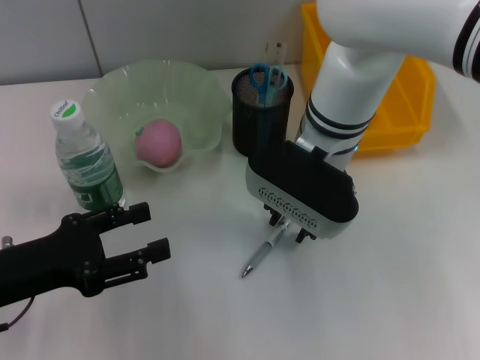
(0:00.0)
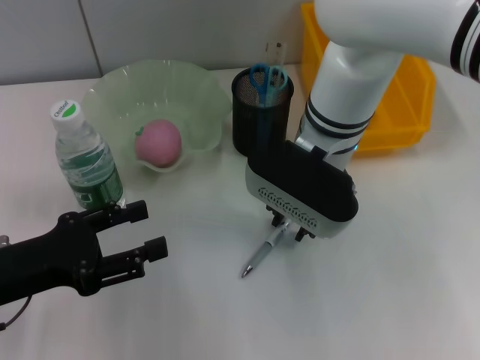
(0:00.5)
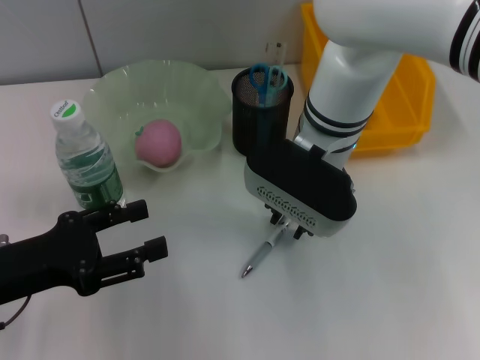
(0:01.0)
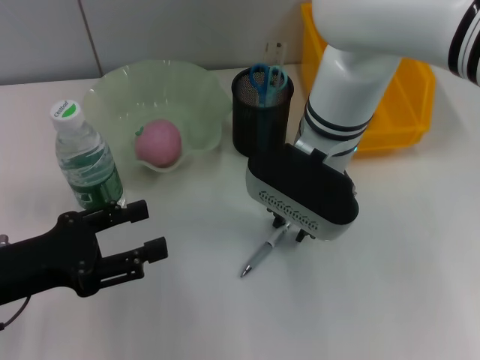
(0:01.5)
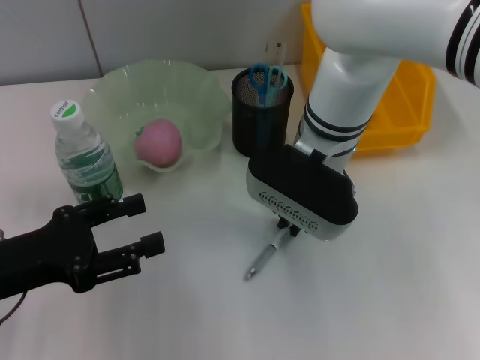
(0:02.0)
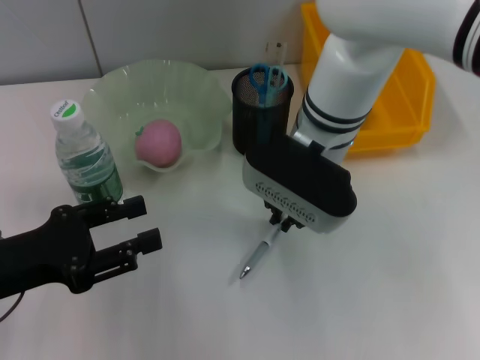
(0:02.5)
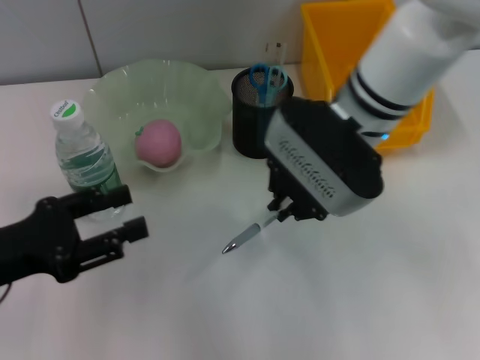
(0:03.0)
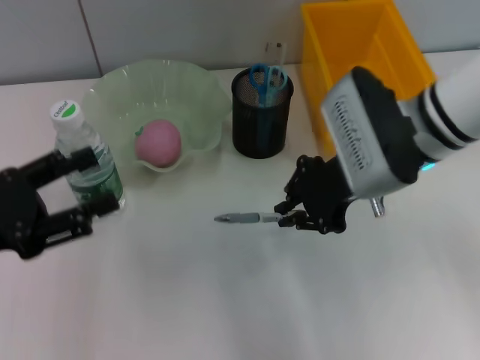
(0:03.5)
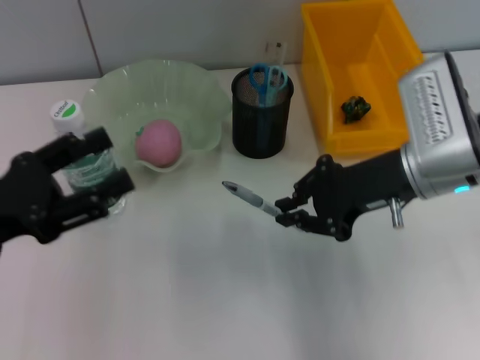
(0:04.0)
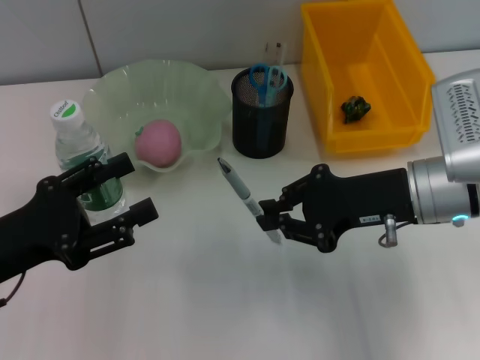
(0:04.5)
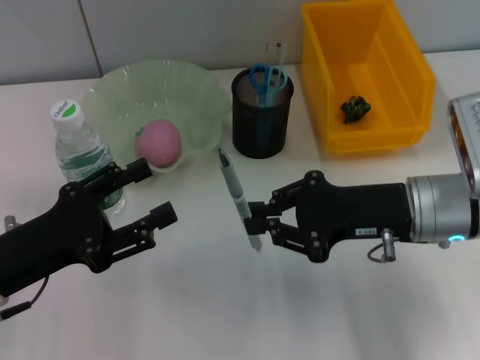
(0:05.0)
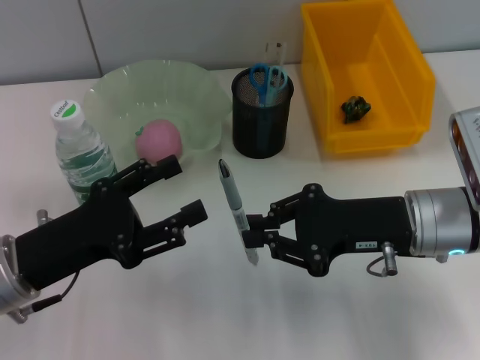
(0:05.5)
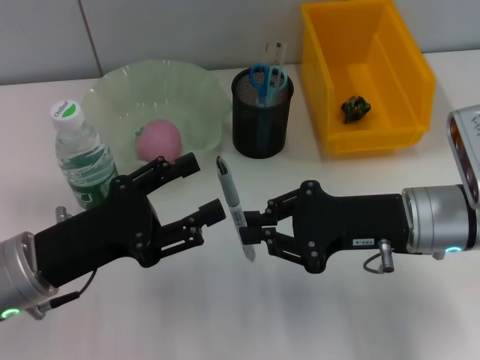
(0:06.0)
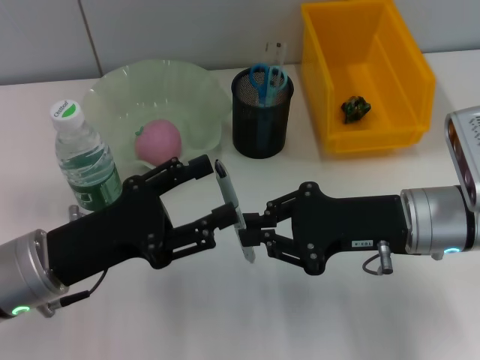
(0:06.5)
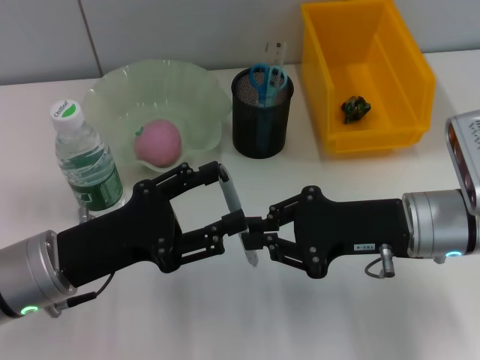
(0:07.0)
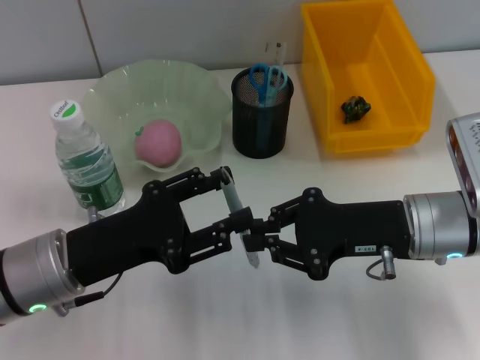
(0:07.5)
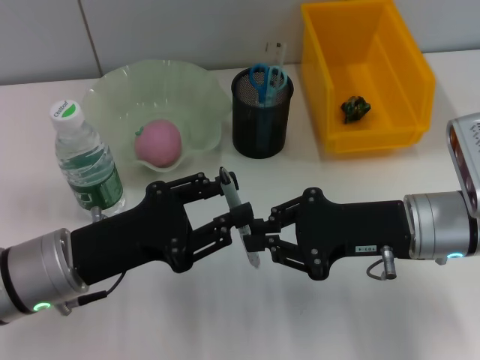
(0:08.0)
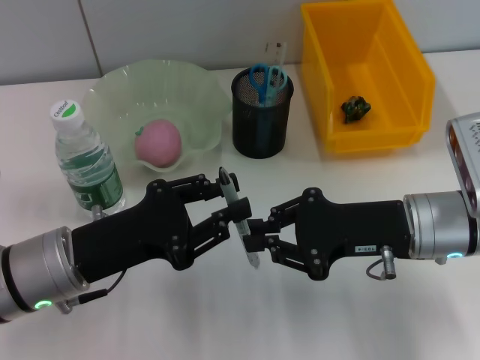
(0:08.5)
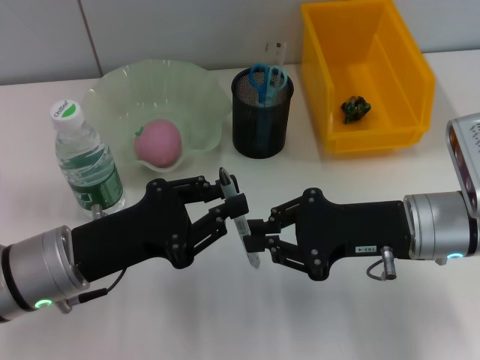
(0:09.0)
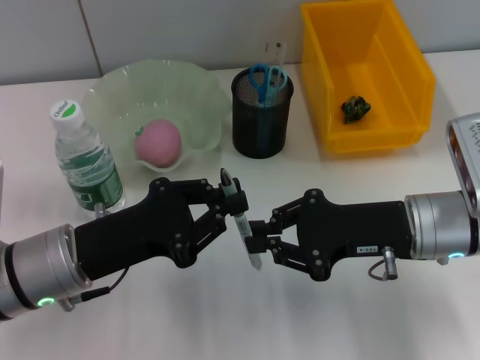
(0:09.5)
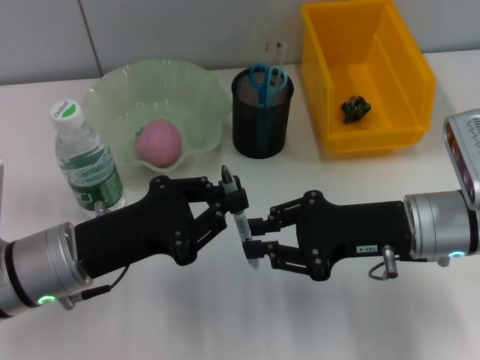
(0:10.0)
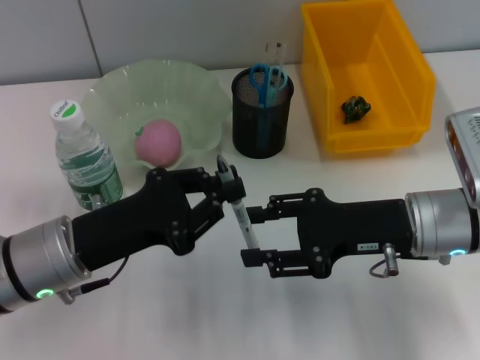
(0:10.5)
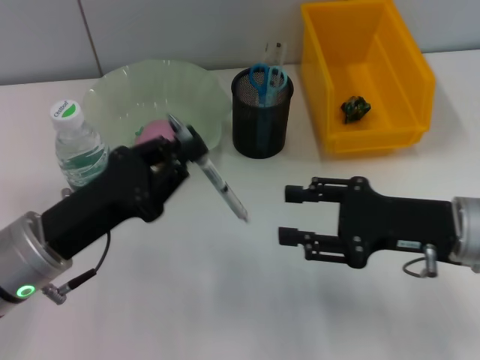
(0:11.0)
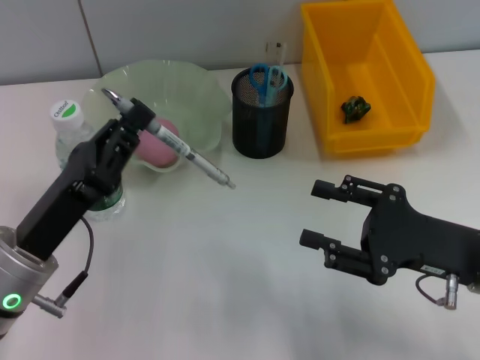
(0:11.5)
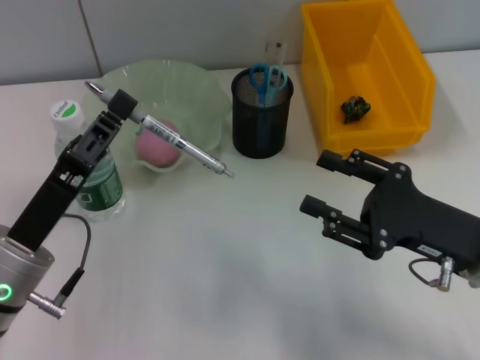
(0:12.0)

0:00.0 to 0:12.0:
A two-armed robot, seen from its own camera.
Step, 0:00.0 to 0:02.0: Grab the gray spring-action pen with the right hand.
Step, 0:02.5 to 0:10.5: Pass the gray spring-action pen from the right hand to the left hand.
0:00.0 to 0:02.0: The two grippers keep their place.
0:02.0 to 0:04.0: The right gripper moves to the right and backward, about 15 cm.
0:04.0 to 0:06.0: The left gripper is displaced to the right by about 5 cm, while the right gripper moves about 5 cm.
0:06.0 to 0:08.0: The grippers make only small movements.
0:08.0 to 0:10.0: The left gripper closes its fingers.
0:10.0 to 0:12.0: The right gripper ends up roughly 5 cm from where it was, and opens its fingers.

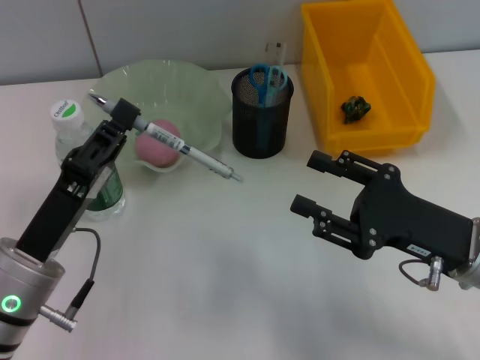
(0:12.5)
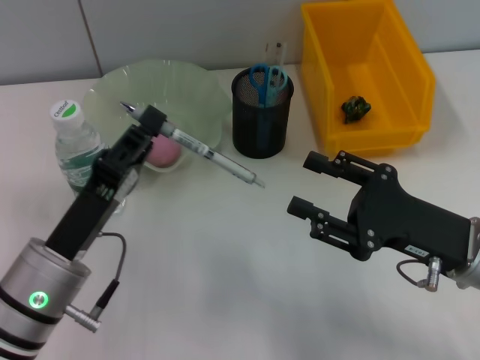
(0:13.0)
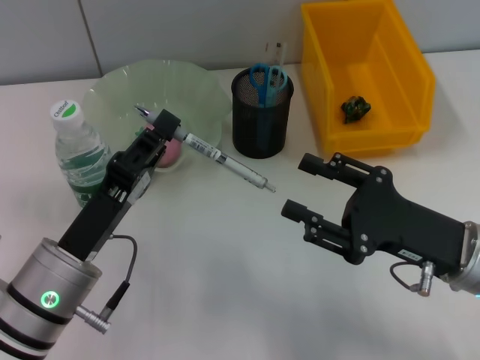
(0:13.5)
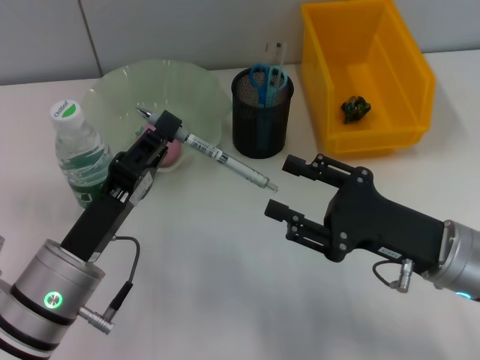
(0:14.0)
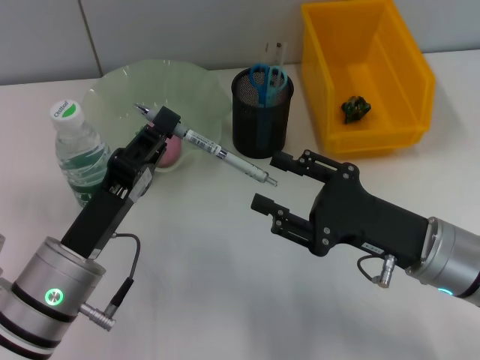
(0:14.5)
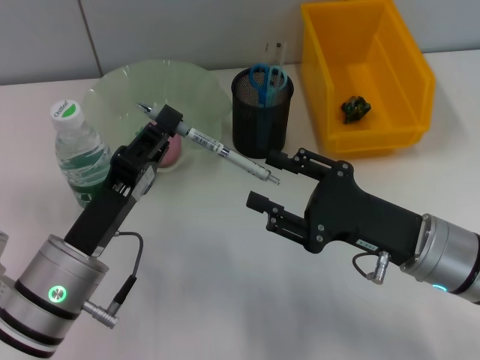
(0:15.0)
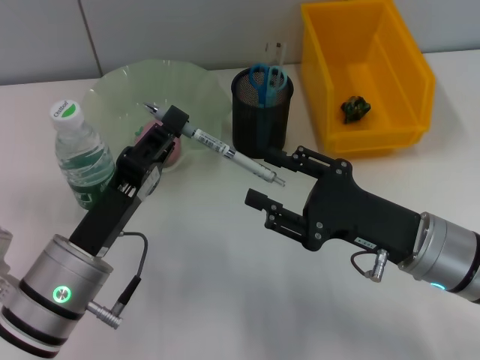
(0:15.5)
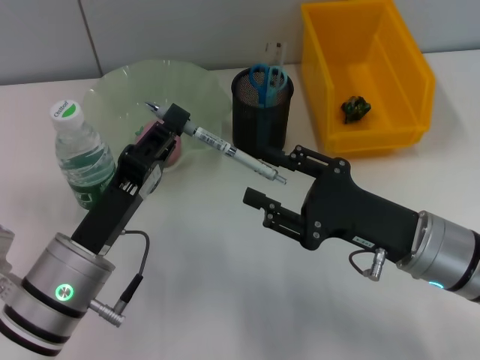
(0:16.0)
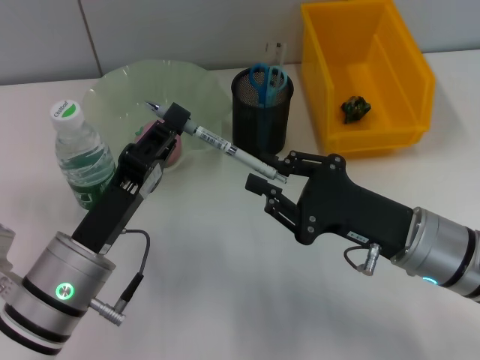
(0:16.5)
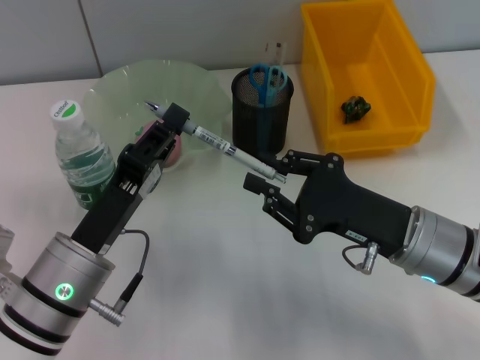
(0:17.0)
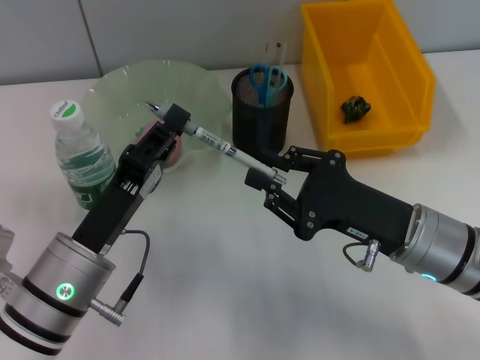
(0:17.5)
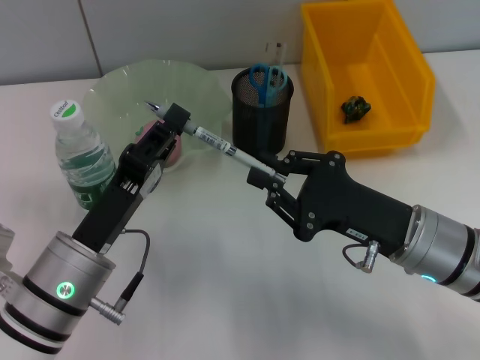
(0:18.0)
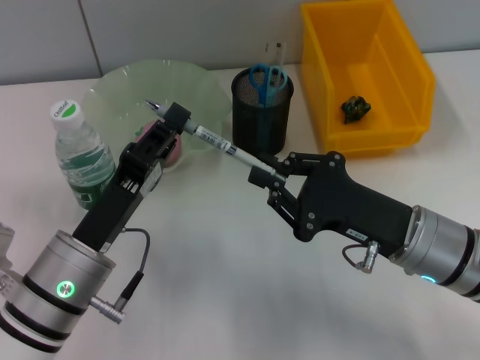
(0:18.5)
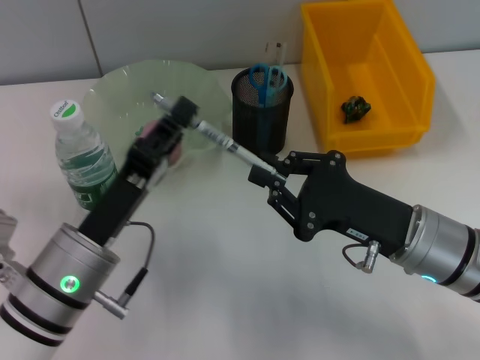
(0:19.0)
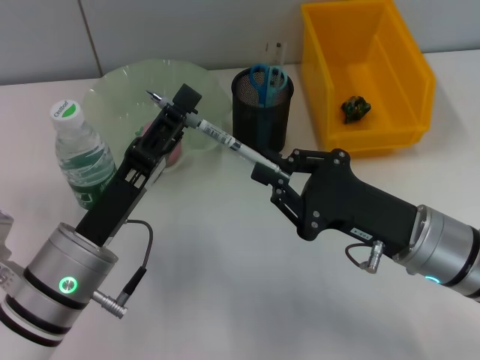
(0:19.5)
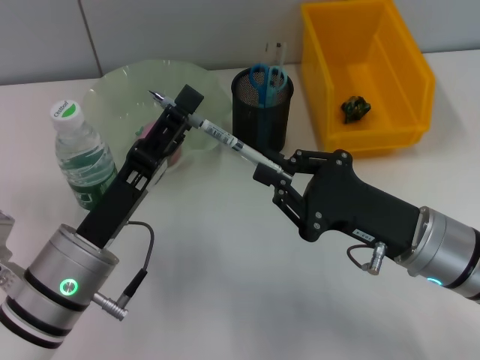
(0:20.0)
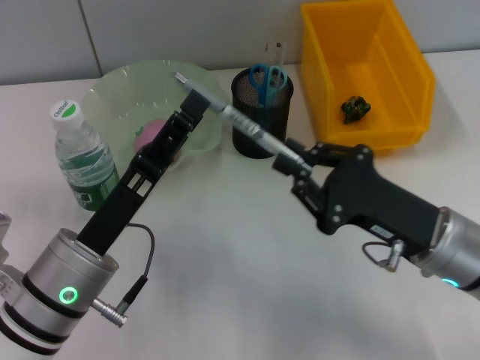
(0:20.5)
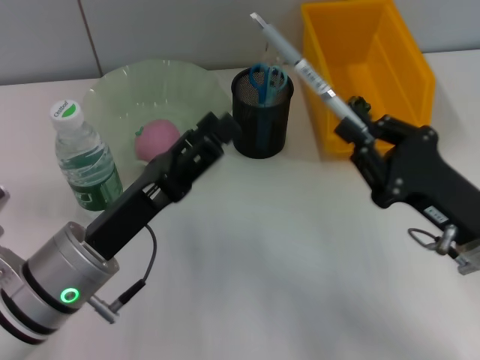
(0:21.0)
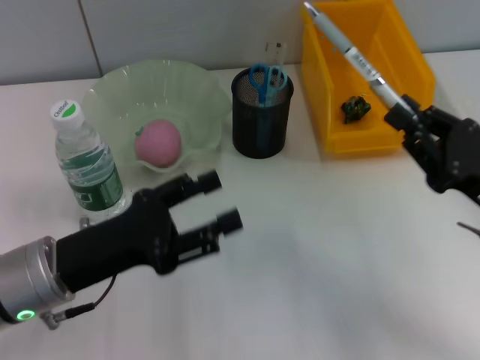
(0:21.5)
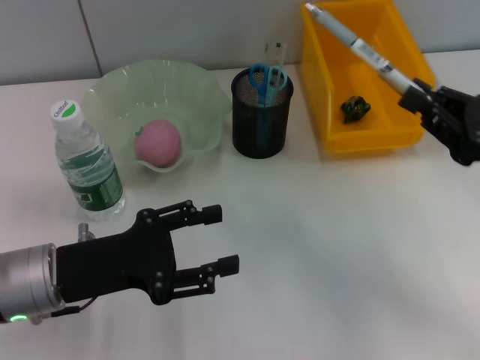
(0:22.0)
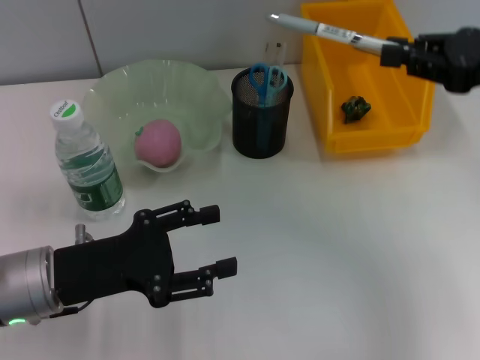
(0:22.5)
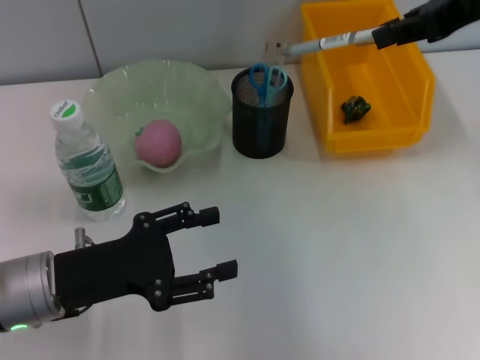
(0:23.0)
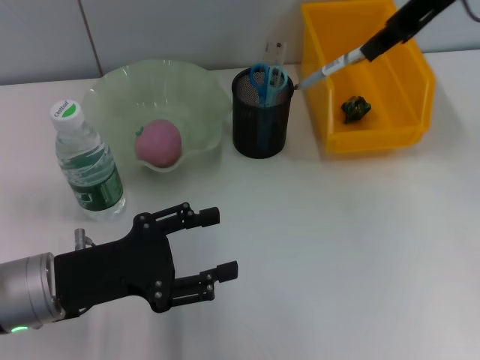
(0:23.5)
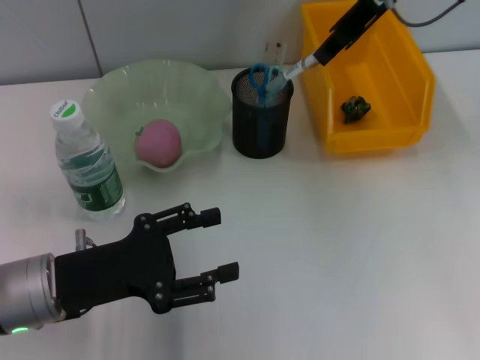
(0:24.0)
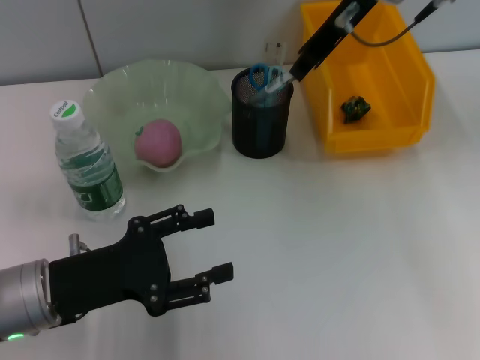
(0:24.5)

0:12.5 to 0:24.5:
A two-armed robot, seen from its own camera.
Step, 0:12.5 to 0:20.0: Pass the gray spring-action pen from the left hand to the right hand.
0:14.5 to 0:16.5: The right gripper closes up.
0:16.5 to 0:18.5: The two grippers keep their place.
0:18.5 to 0:20.5: The left gripper opens up.
0:20.5 to 0:22.5: The right gripper goes some 20 cm upward, to the right and forward. Meanwhile the left gripper travels to the left by some 5 cm.
0:22.5 to 0:24.5: The right gripper is displaced to the left and forward by about 20 cm.

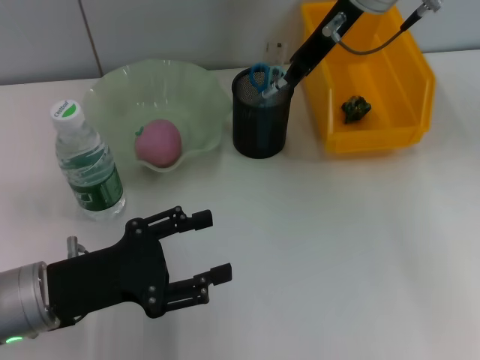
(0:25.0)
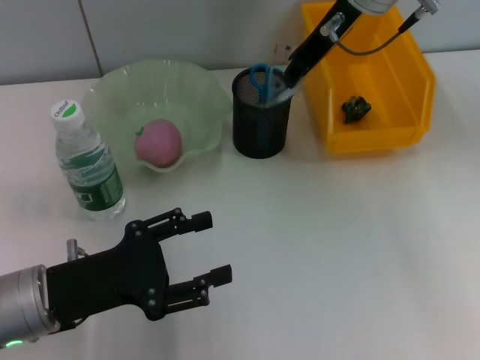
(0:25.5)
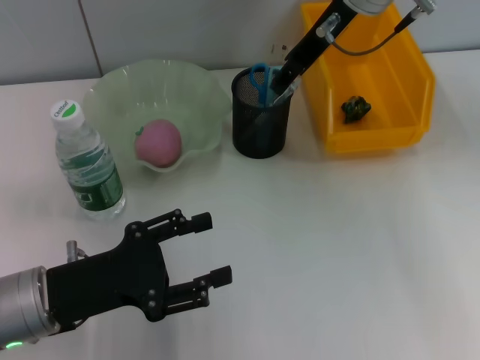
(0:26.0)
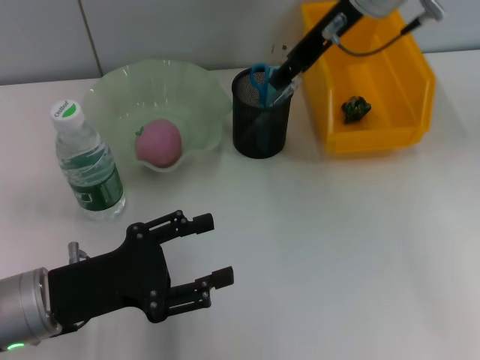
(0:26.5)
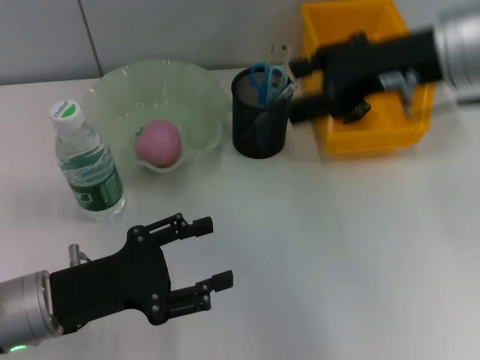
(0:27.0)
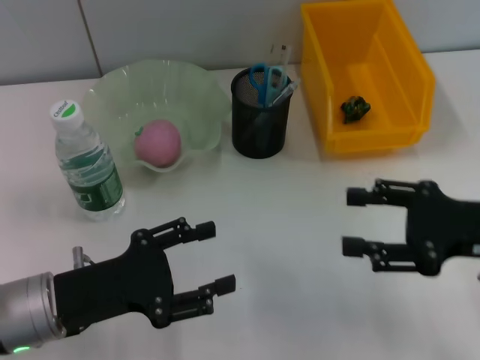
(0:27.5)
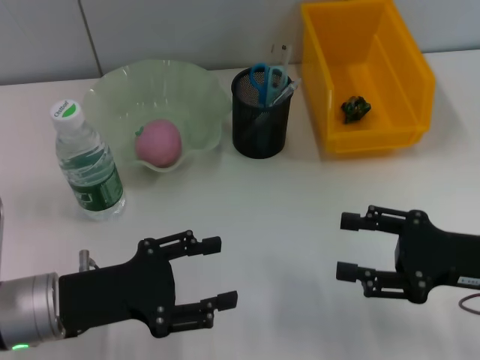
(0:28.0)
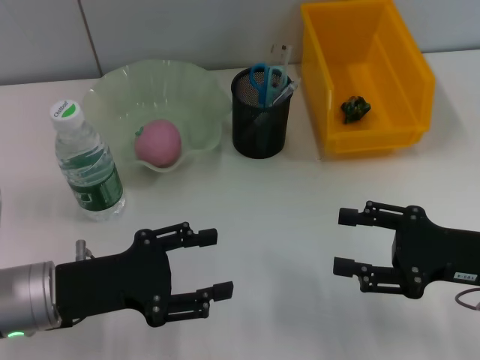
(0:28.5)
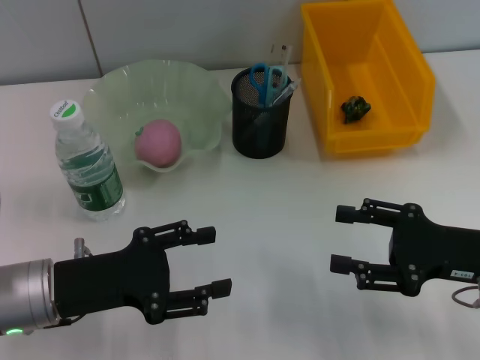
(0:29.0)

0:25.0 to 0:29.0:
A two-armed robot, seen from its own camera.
0:25.0 to 0:27.0: The right gripper travels backward and to the right by approximately 15 cm, and opens.
0:27.0 to 0:29.0: The right gripper goes about 20 cm downward, backward and to the right.
